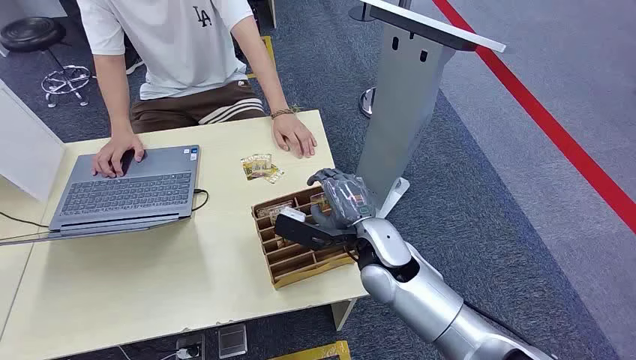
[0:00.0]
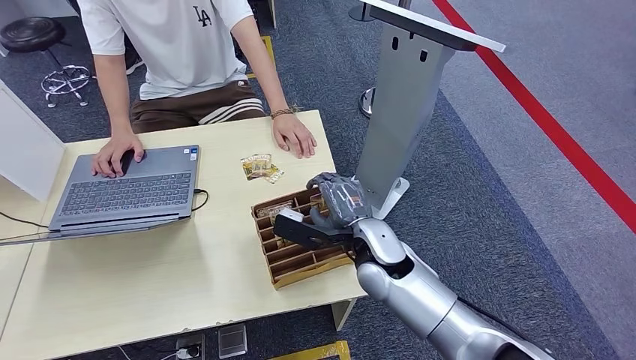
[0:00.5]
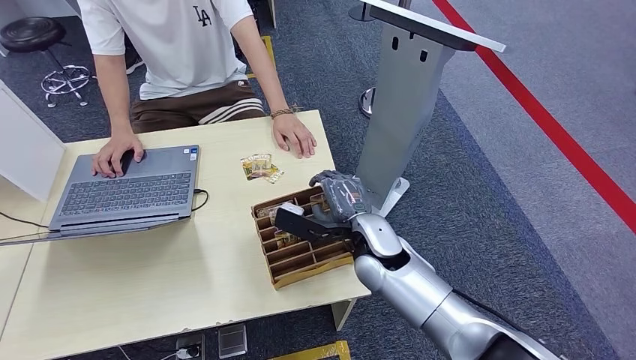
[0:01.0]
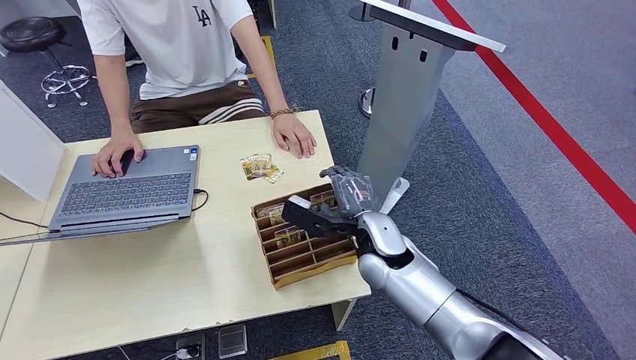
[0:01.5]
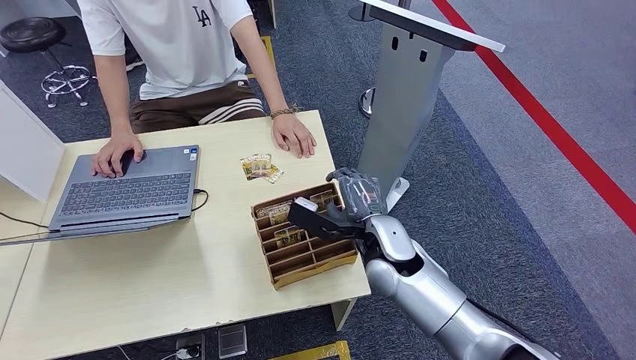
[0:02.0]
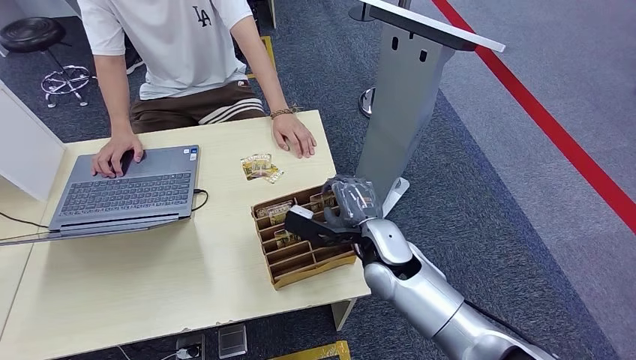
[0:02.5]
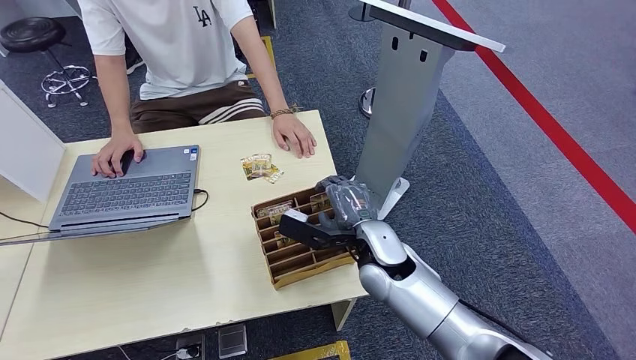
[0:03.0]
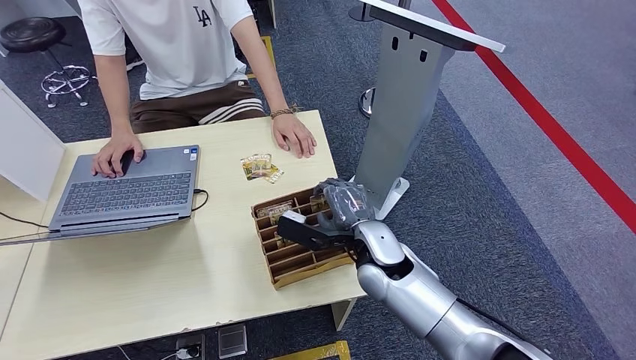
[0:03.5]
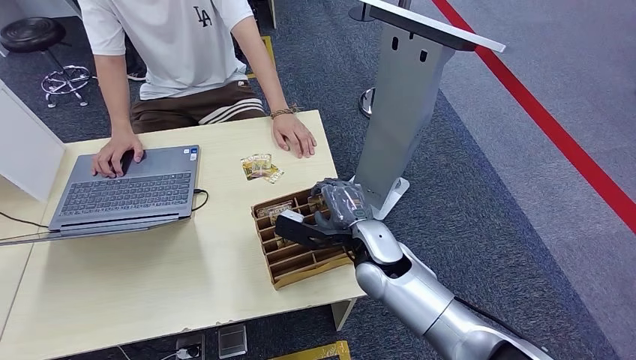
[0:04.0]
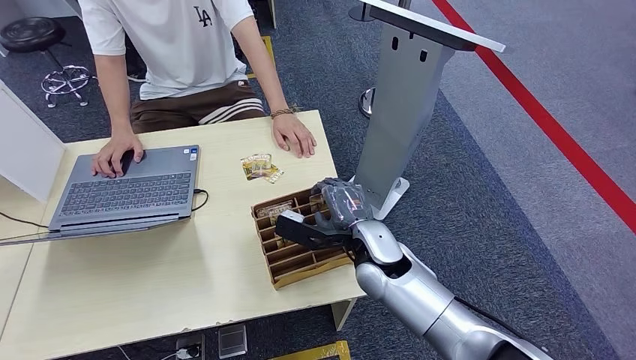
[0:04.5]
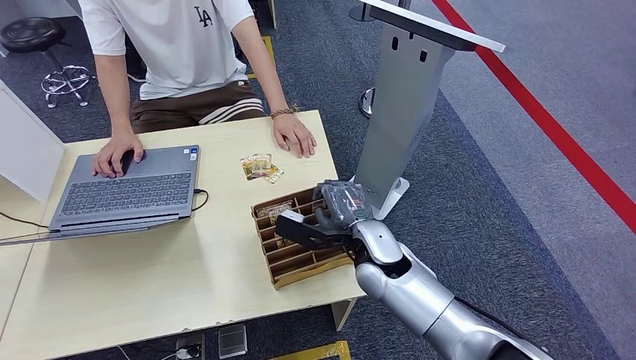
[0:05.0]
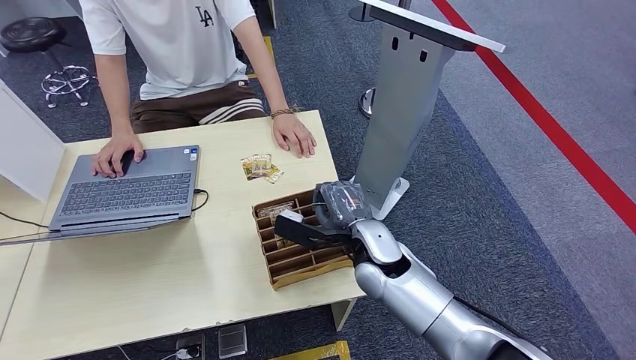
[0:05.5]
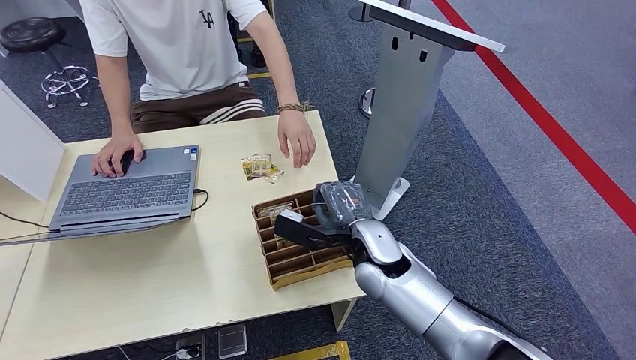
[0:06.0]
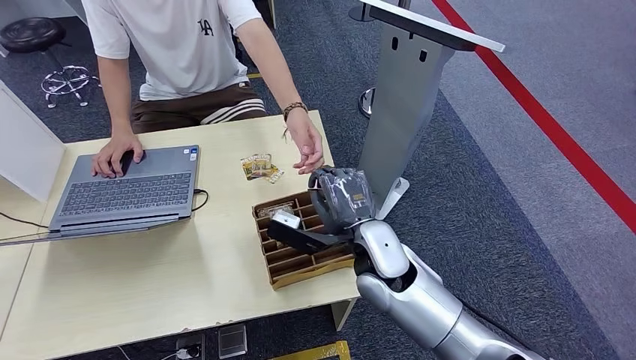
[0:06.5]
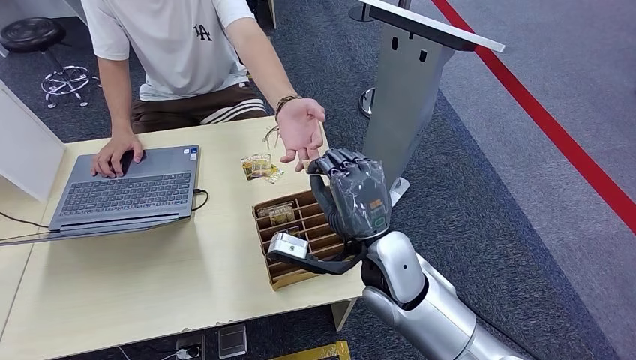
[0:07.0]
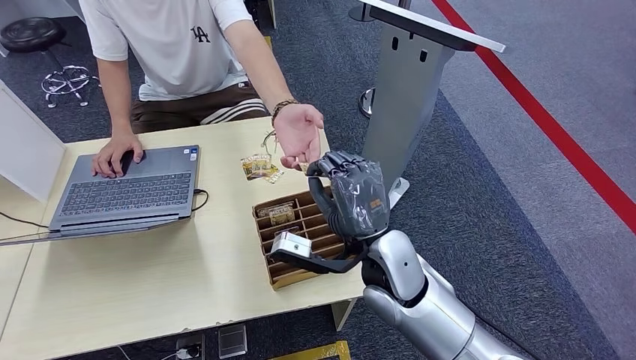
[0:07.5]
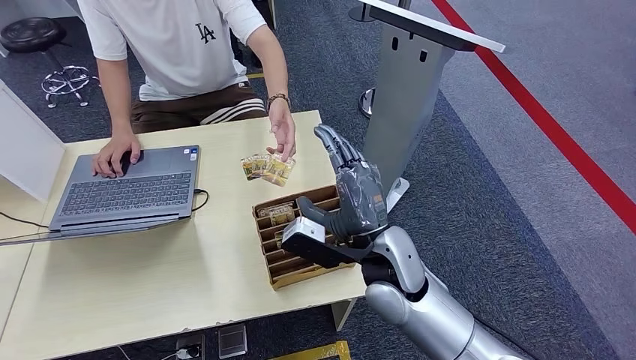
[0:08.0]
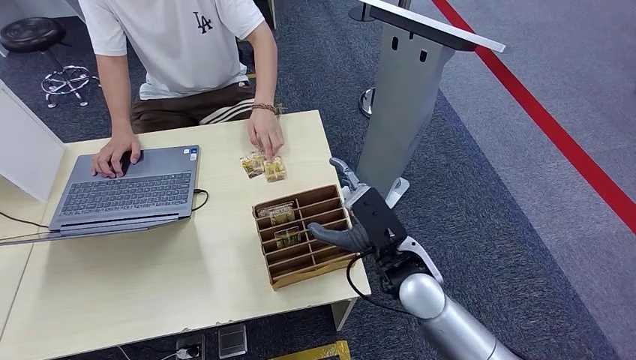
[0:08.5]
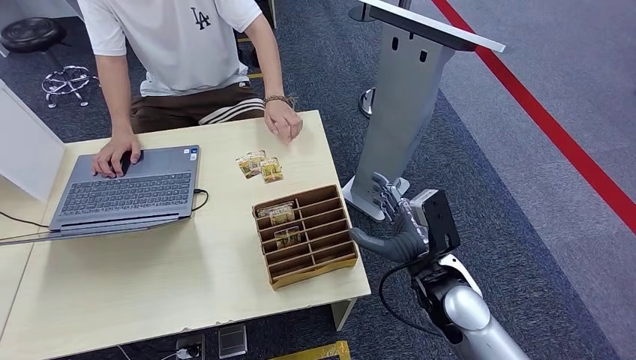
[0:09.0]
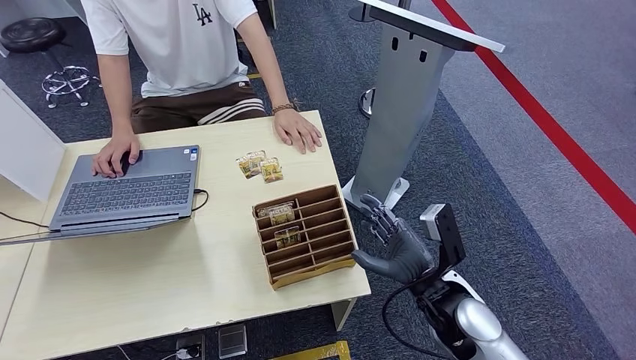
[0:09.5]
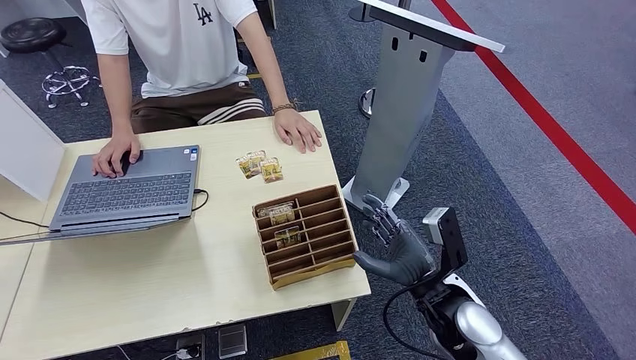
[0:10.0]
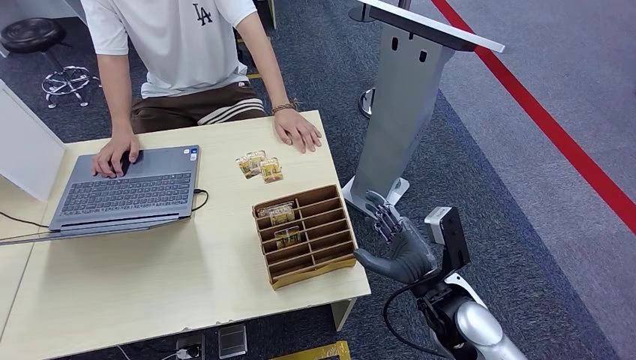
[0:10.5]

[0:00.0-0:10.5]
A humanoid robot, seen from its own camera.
Step, 0:00.0 to 0:06.5: Pick up the key card from the card box.
Step, 0:07.0 to 0:10.5: Hand the key card to the target.
0:02.0 to 0:06.5: There are only small adjustments of the hands.
0:06.5 to 0:08.5: The right hand ends up some 5 cm from where it was.
0:08.5 to 0:10.5: The right hand travels to the right and backward by about 10 cm.

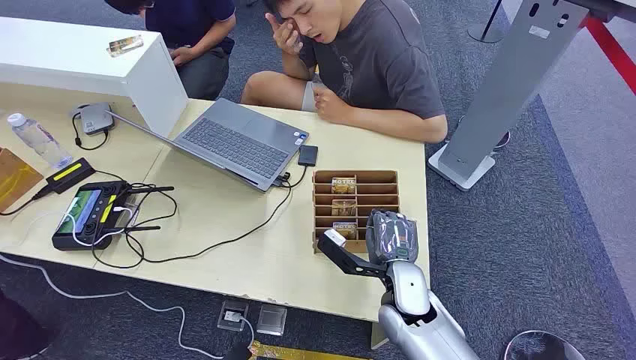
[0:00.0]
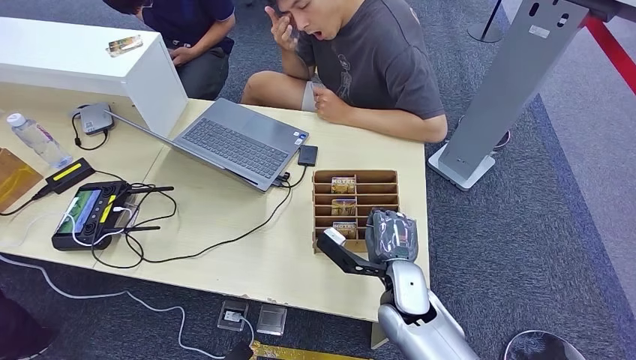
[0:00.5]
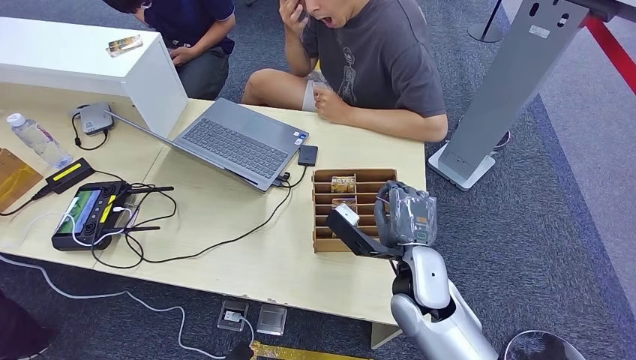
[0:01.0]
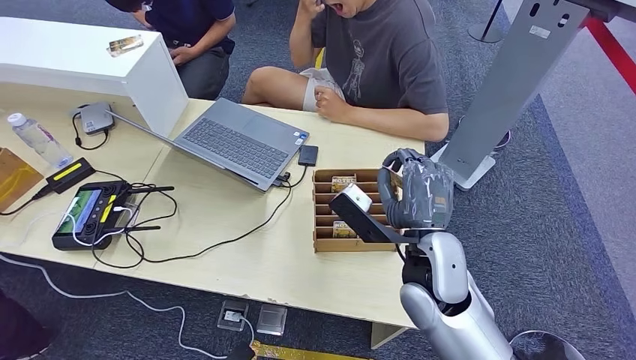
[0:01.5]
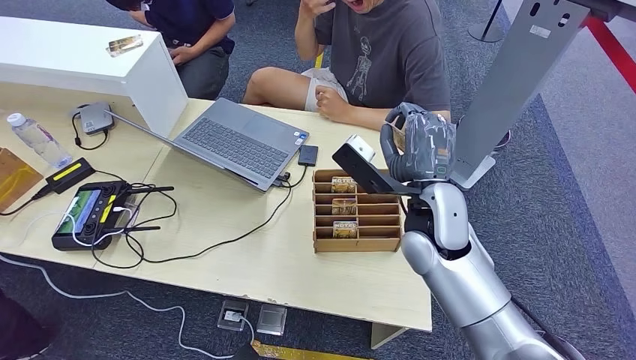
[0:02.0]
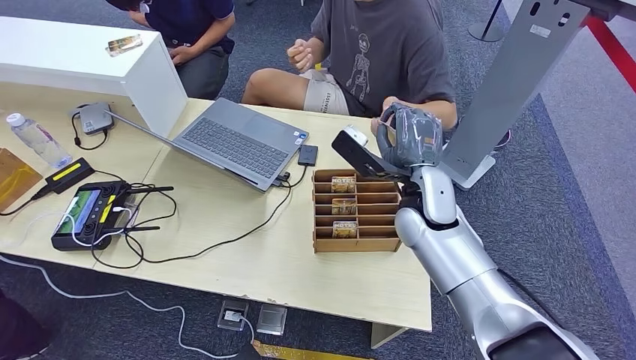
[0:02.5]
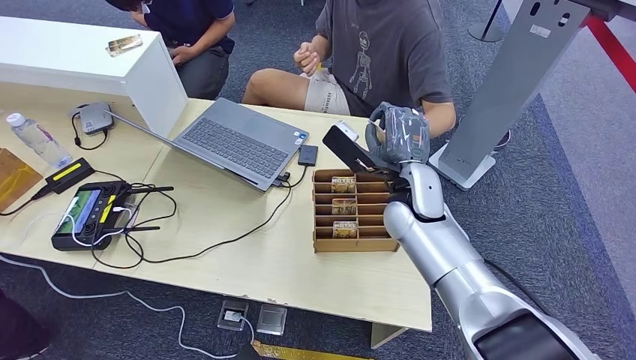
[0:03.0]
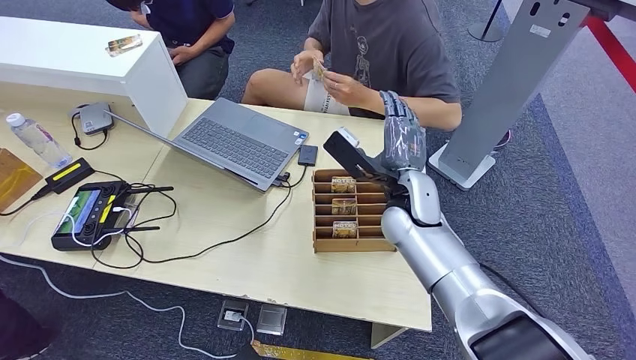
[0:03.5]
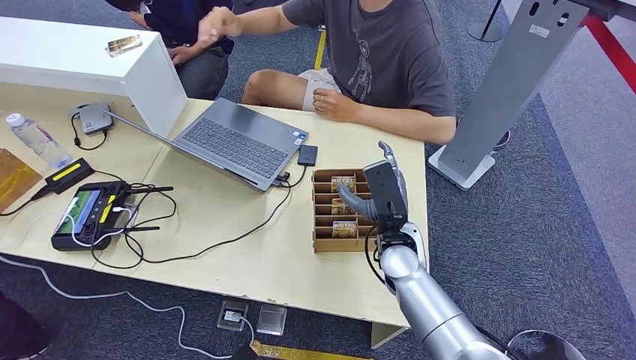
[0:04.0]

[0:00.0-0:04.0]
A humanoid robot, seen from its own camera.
Step, 0:00.0 to 0:01.5: Pick up the key card from the card box.
Step, 0:02.0 to 0:04.0: Hand the key card to the target.
0:02.0 to 0:04.0: The right hand goes approximately 10 cm downward.
